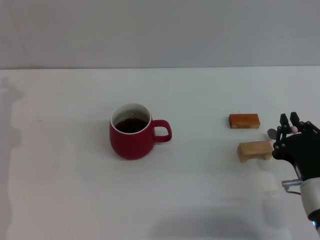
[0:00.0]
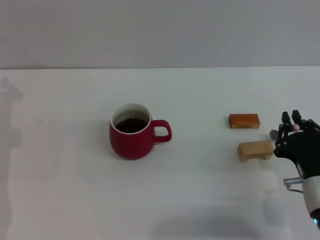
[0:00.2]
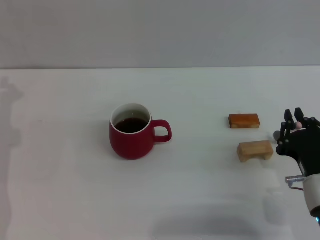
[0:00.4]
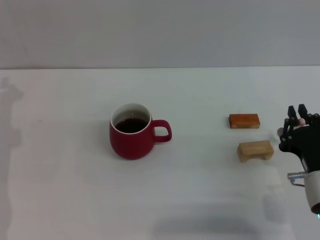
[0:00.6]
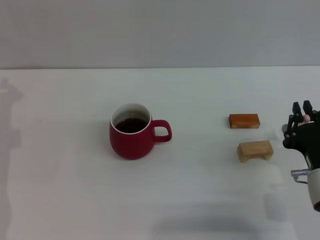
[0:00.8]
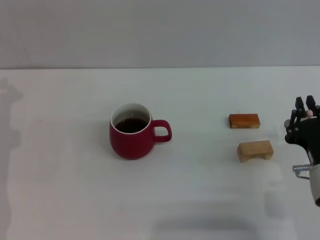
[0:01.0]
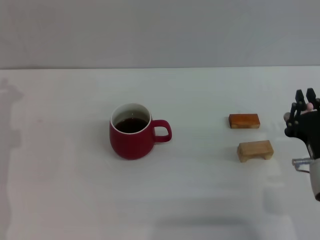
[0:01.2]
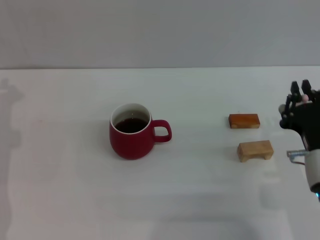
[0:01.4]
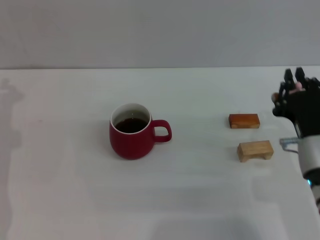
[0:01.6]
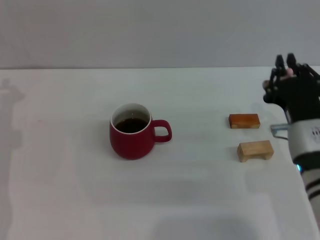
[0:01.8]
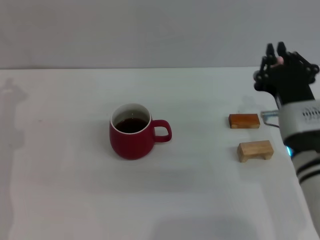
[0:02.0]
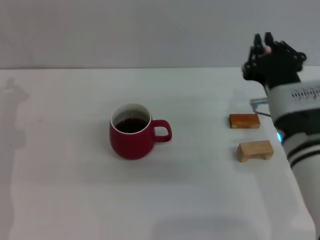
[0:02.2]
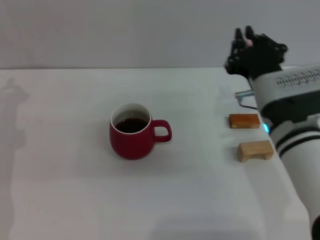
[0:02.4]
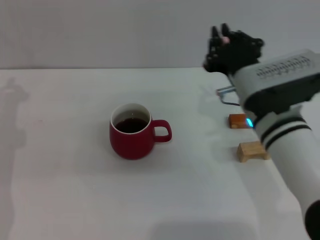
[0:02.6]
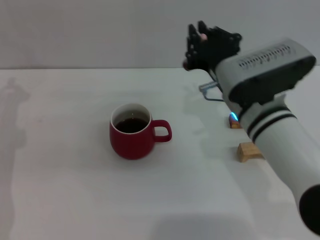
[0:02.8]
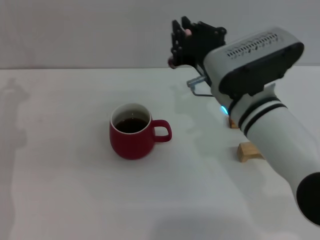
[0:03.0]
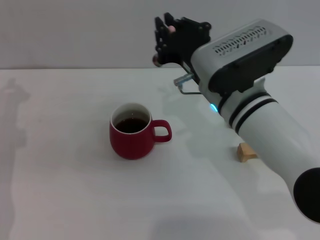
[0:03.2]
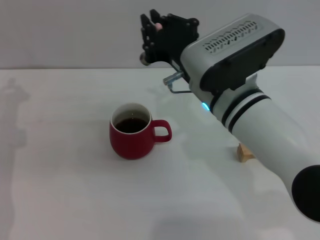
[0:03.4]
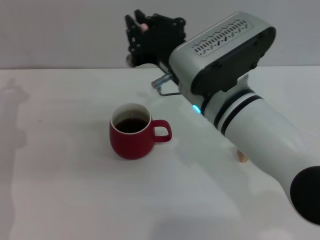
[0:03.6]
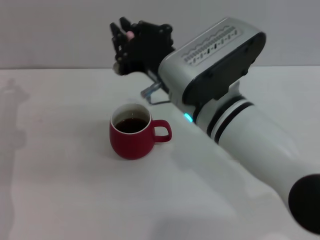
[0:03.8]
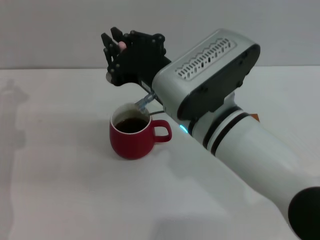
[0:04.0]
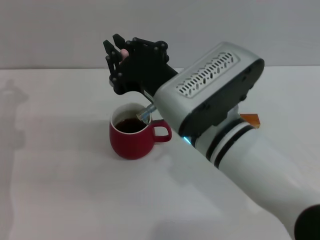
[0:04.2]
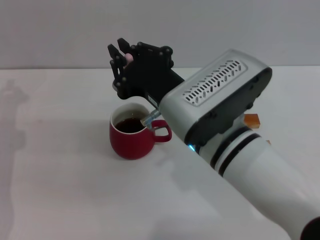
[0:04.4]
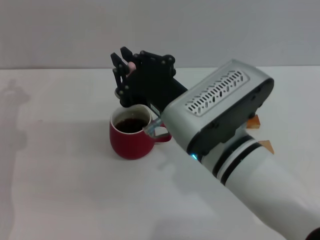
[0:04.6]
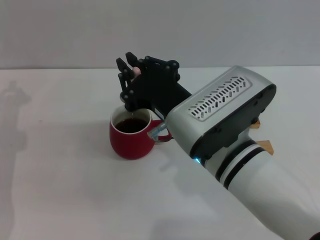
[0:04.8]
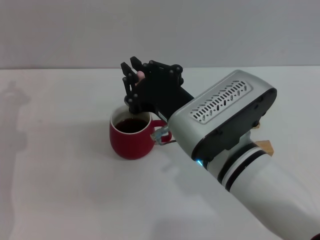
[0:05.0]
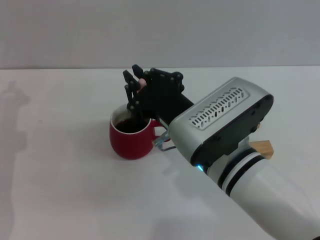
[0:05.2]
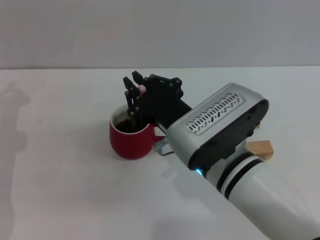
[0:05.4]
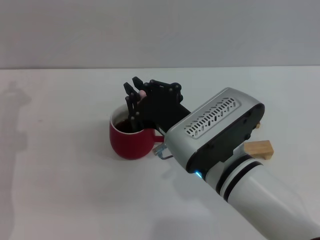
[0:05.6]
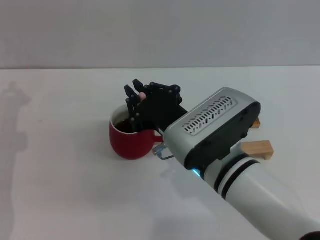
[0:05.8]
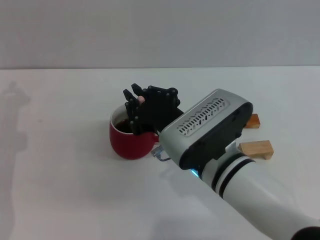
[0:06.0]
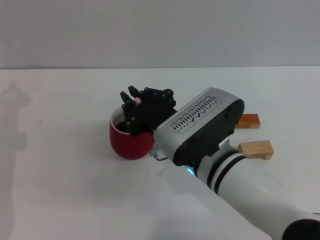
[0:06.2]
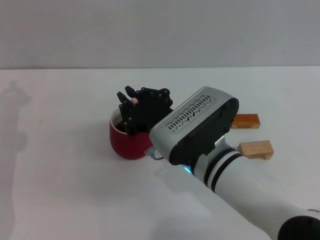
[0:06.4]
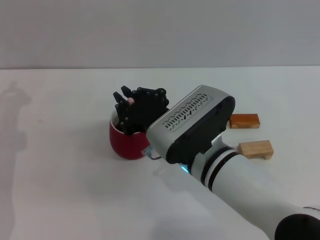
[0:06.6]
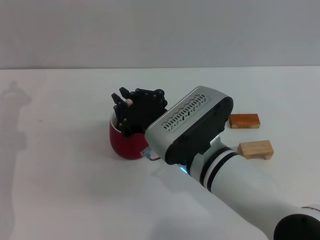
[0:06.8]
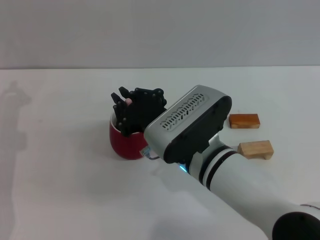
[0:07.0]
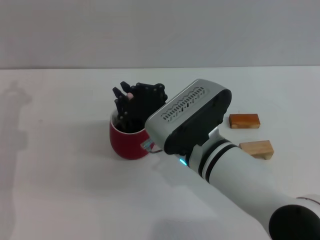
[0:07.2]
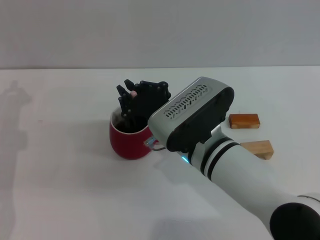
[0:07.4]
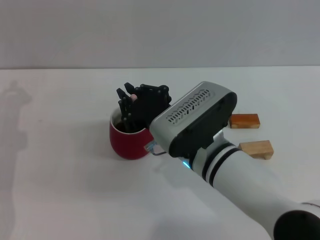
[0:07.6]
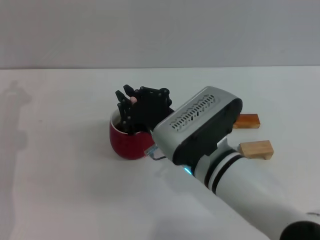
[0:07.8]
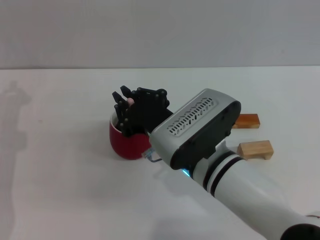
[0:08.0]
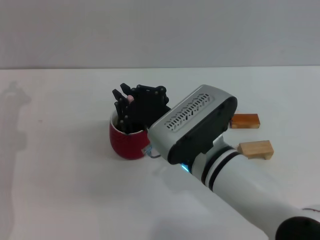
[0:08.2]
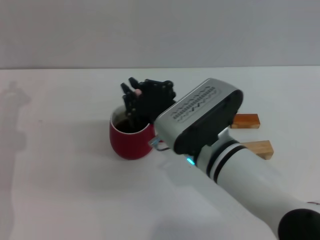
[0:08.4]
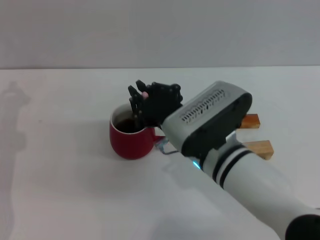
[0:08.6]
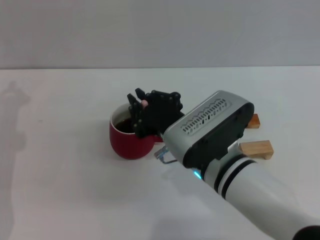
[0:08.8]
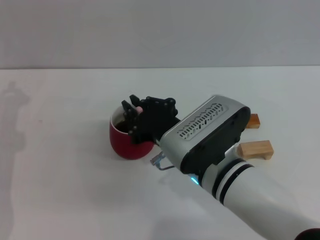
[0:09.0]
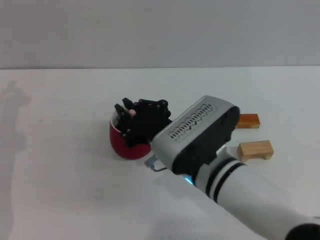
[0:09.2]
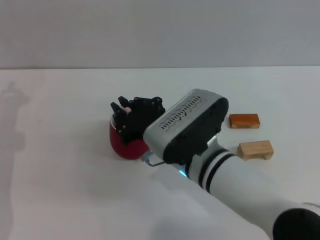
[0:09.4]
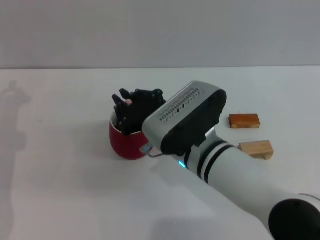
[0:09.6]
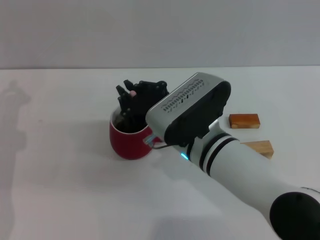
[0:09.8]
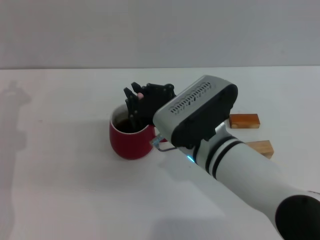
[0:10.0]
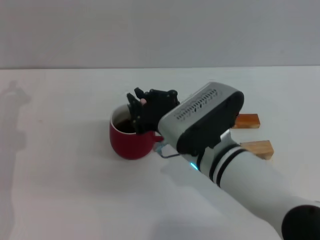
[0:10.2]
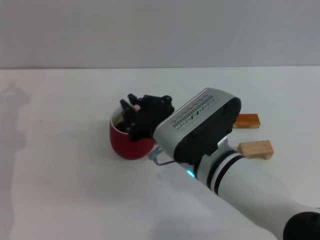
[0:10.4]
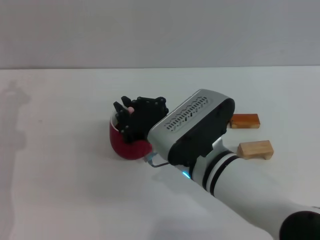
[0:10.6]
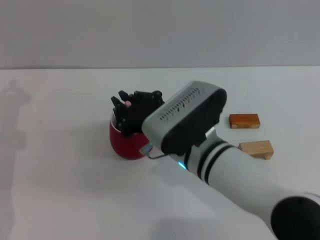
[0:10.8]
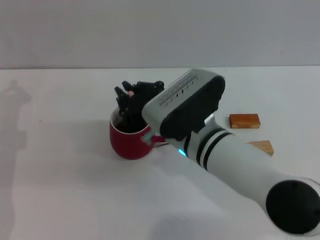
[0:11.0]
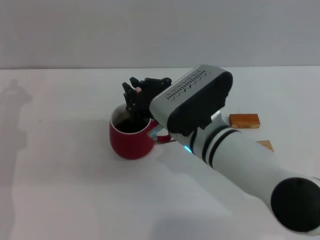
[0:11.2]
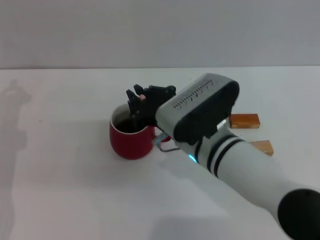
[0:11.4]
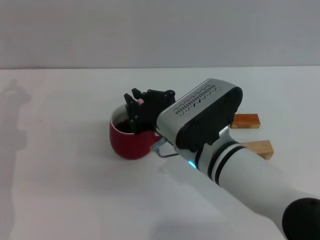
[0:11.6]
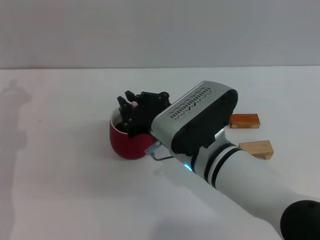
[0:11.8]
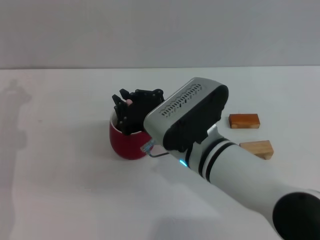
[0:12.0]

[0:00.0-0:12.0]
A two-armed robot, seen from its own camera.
Task of the whole recording: Move the red cup to the center, lift the pink spoon, stir it three times in the cup, and put the spoon into the cup.
0:00.0 to 0:01.6: The right gripper ends up approximately 5 cm from where it was.
0:01.6 to 0:03.0: The right gripper moves to the left, forward and upward, some 15 cm.
0:03.0 to 0:04.4: The right gripper heads backward, covering some 5 cm.
0:04.4 to 0:06.0: The right gripper goes approximately 5 cm downward.
0:06.0 to 0:12.0: The grippers stay close to where they were, moving slightly.

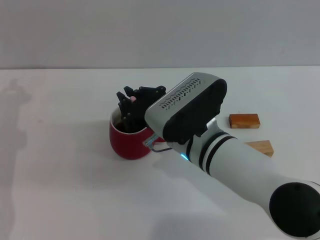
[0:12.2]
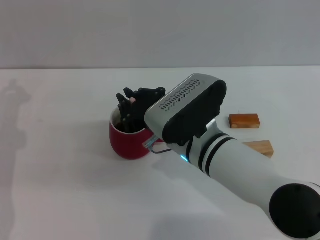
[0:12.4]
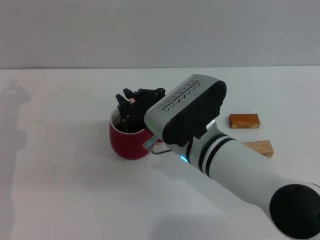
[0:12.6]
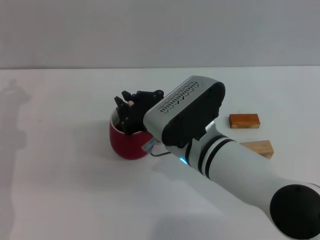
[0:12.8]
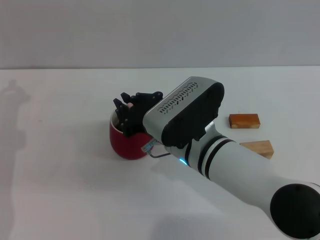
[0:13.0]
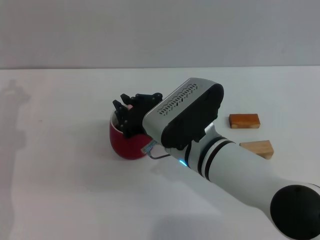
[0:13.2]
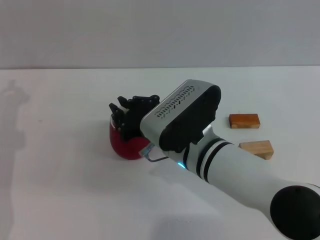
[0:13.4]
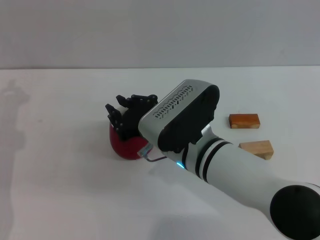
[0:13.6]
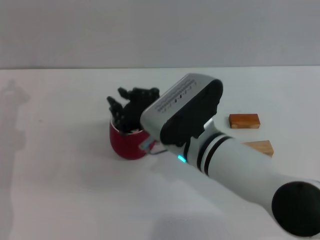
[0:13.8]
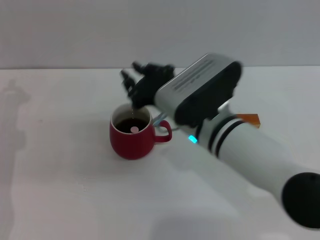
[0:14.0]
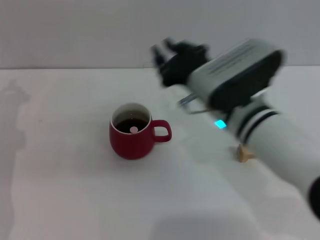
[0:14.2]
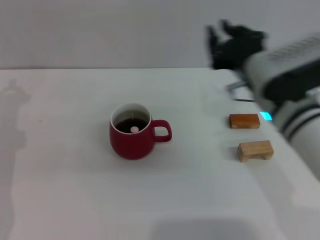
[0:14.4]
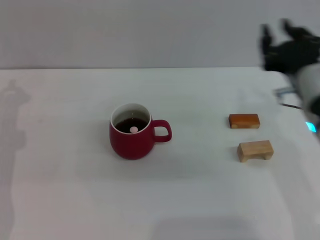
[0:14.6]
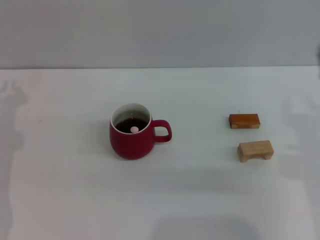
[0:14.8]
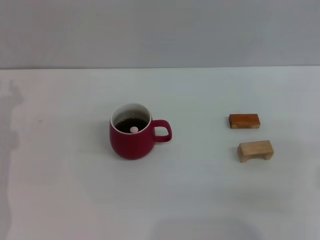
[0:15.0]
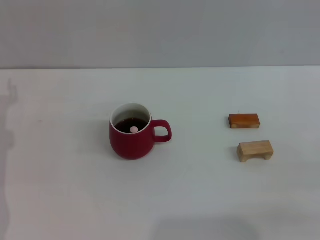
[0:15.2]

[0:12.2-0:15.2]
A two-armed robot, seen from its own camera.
Task of the whole recording: Move the red cup to the center, lift the pink spoon, stir it three times in the cup, and put the spoon into the cup.
0:12.2 to 0:13.8: The two grippers keep their place.
0:13.8 to 0:15.2: The right gripper is displaced to the right by some 30 cm, and opens up.
